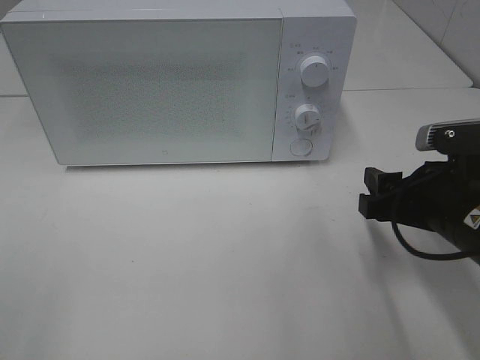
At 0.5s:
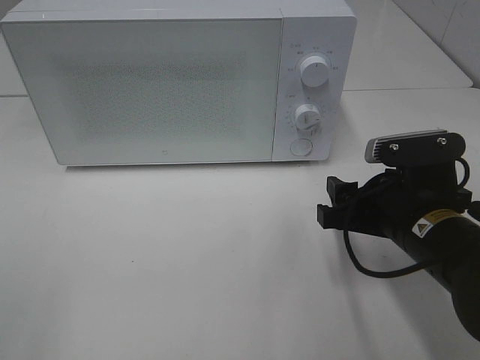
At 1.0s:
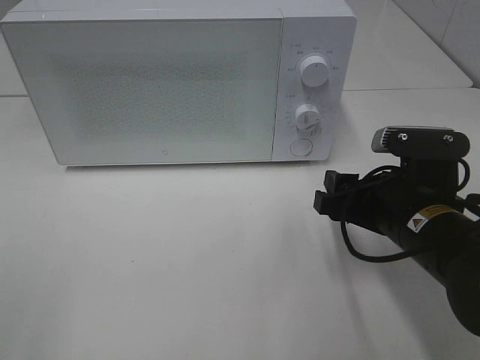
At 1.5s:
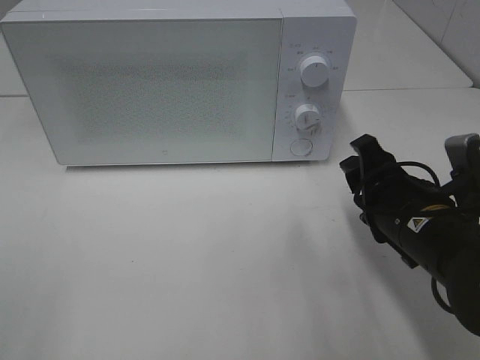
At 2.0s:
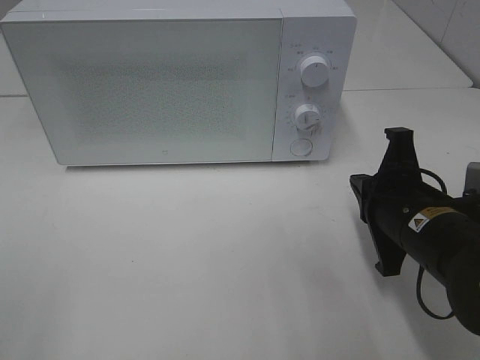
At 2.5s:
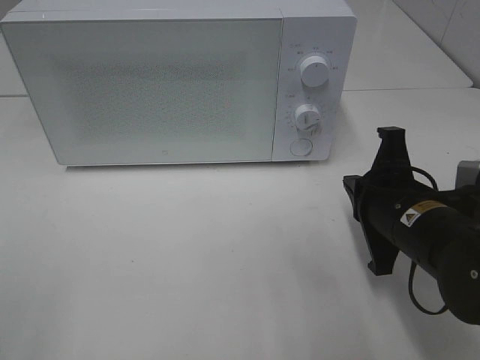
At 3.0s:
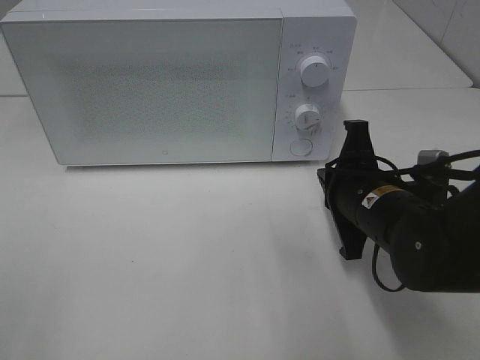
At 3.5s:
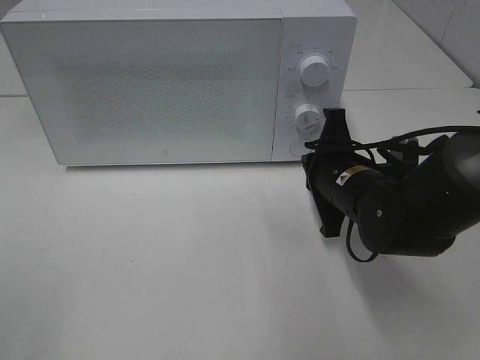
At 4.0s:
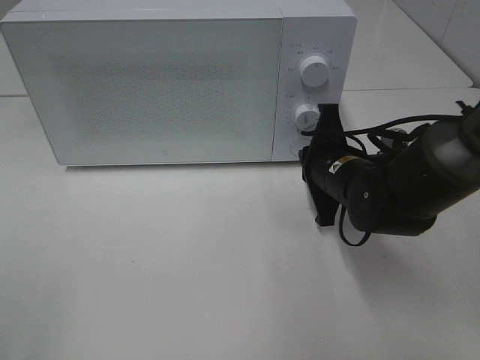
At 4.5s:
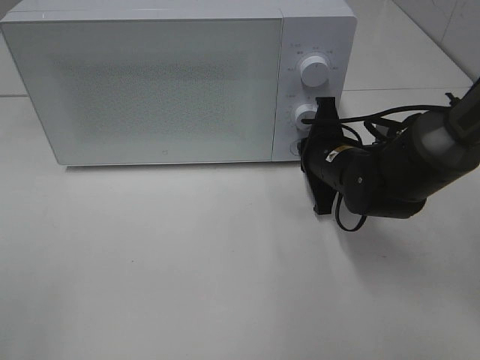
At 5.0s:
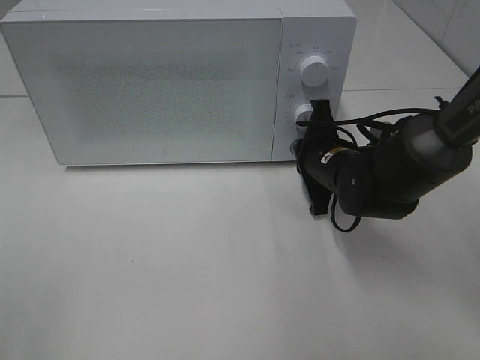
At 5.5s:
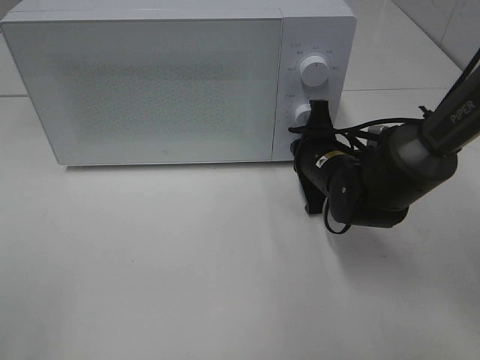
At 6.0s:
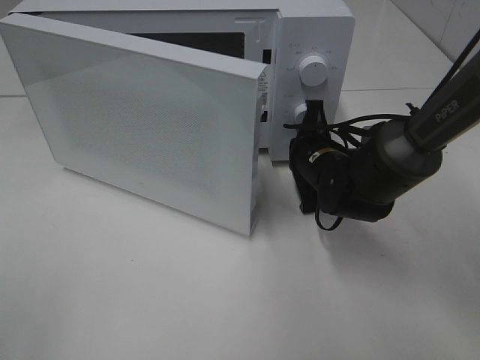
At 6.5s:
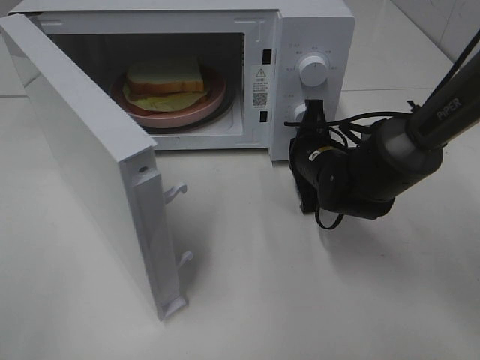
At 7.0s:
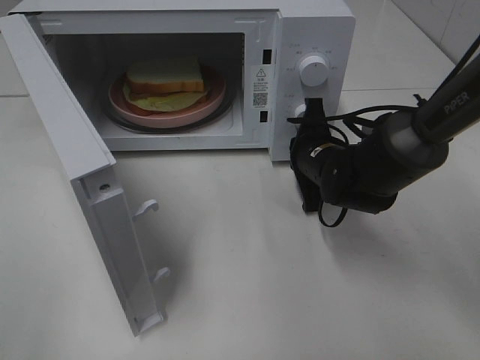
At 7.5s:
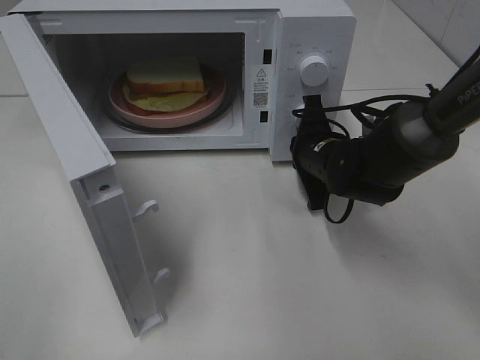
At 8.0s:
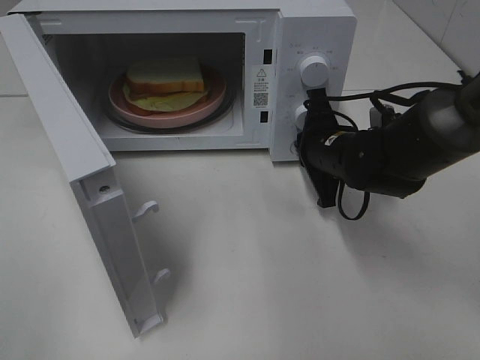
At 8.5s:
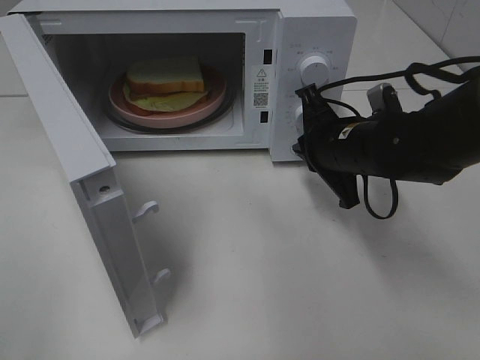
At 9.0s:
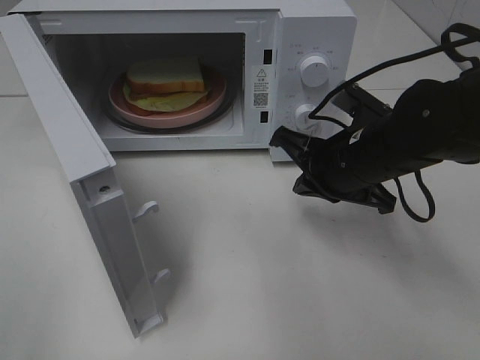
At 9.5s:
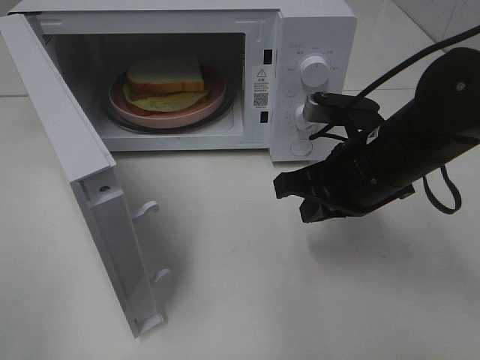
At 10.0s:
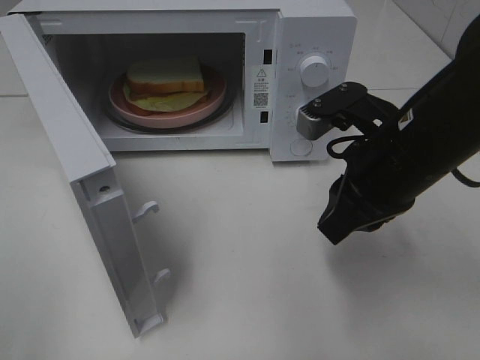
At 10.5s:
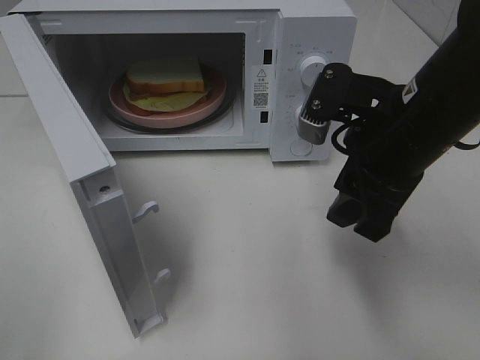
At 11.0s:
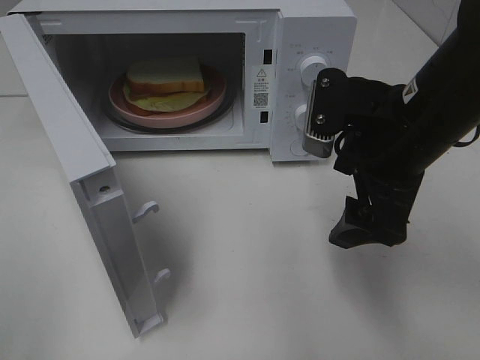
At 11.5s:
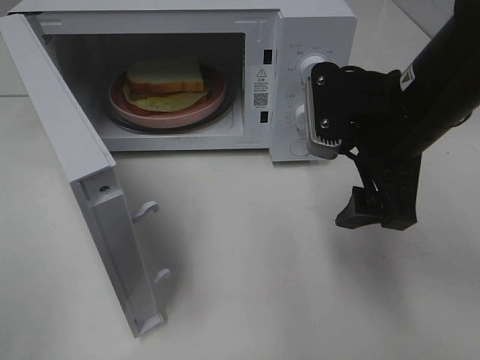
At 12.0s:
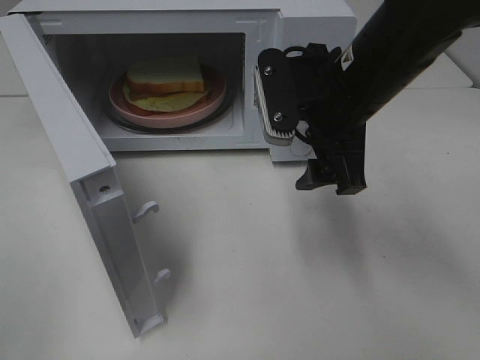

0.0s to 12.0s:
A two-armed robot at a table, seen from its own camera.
Task of the whole recording: Heat Sandwich.
Step, 0.0s to 8.0s: Right hand: press the switch.
0.0s to 2.0s: The right gripper closes its fingers.
2.0s to 4.0s: The right gripper is displaced forward by about 10 cm.
8.0s to 10.0s: The right gripper moves backward and upward, approximately 15 cm.
10.0s to 12.0s: The right gripper moves forward, roughly 5 cm, and opens up.

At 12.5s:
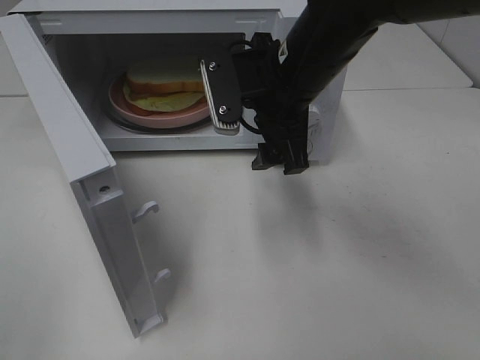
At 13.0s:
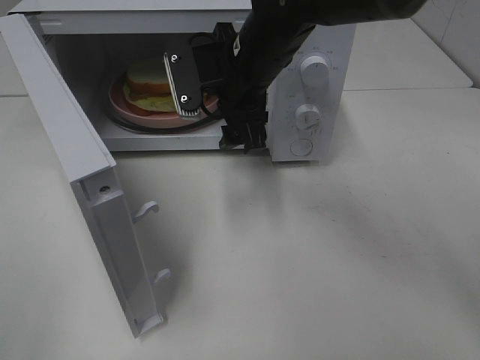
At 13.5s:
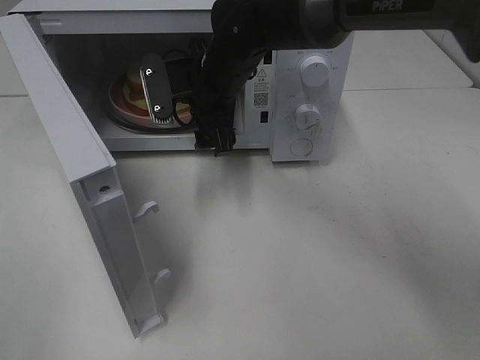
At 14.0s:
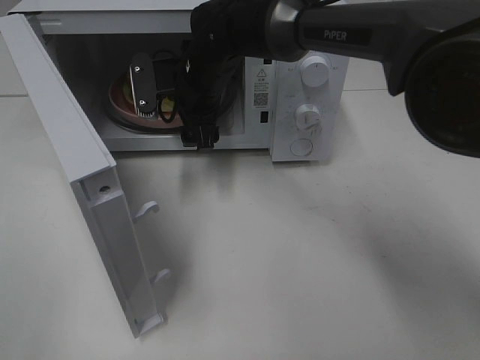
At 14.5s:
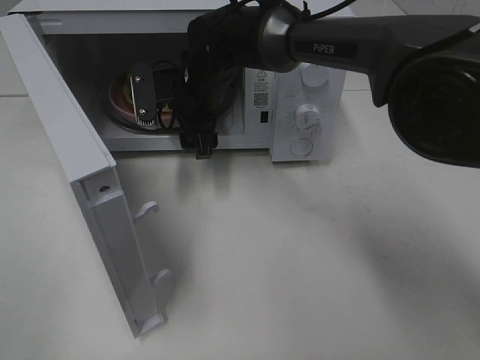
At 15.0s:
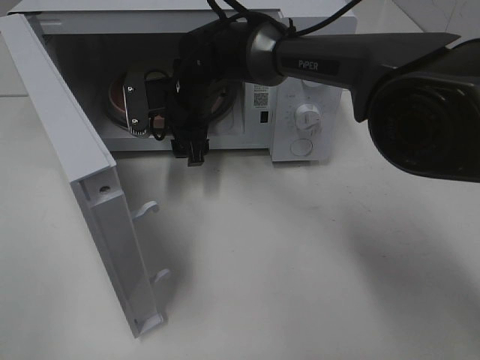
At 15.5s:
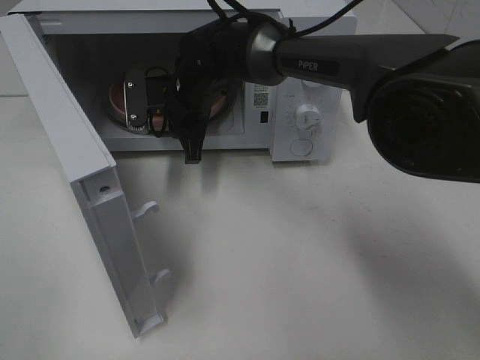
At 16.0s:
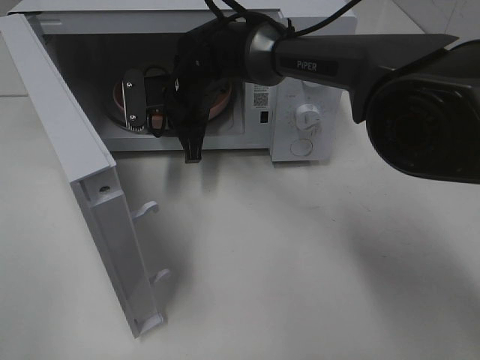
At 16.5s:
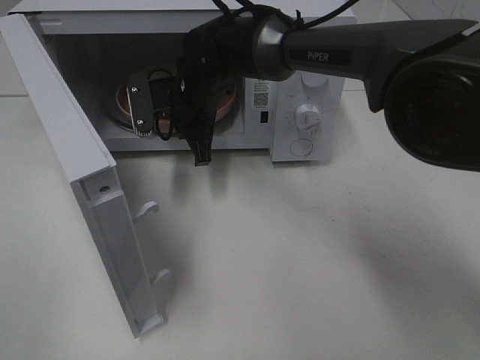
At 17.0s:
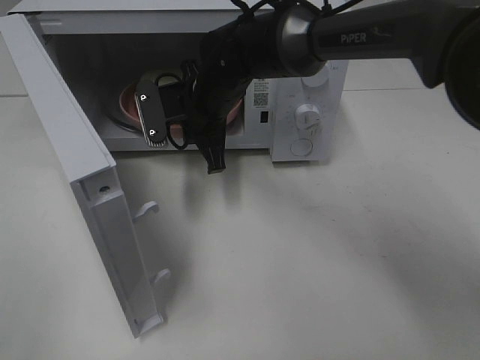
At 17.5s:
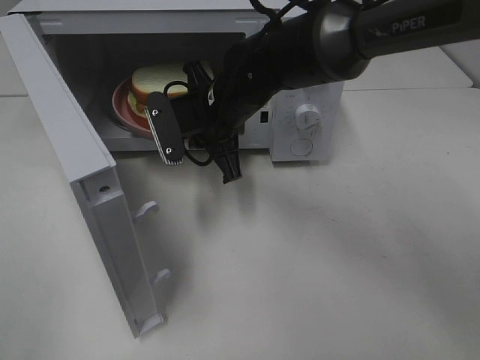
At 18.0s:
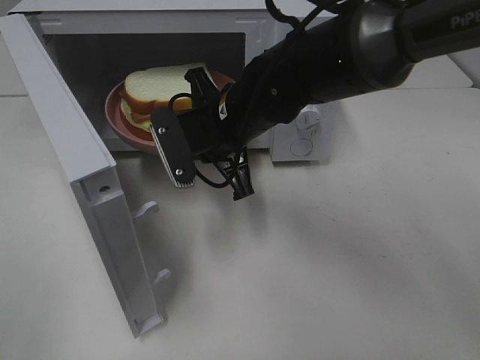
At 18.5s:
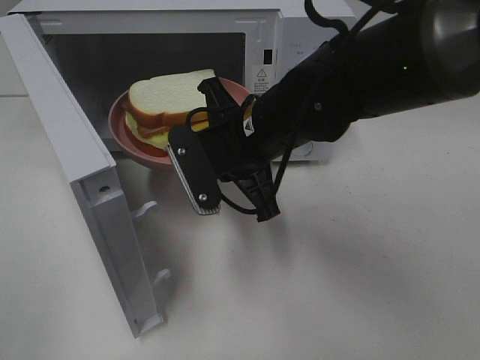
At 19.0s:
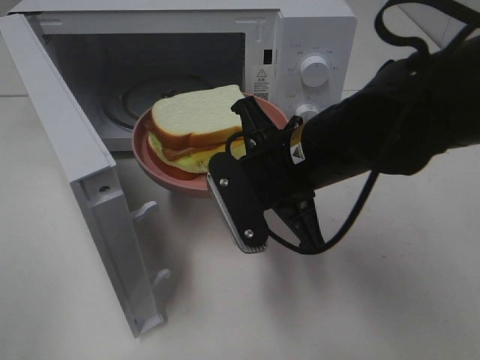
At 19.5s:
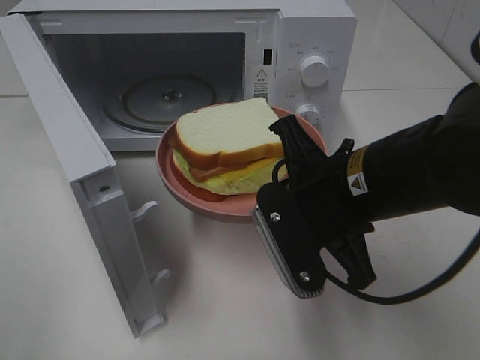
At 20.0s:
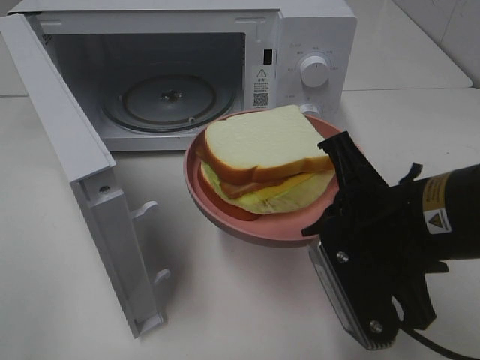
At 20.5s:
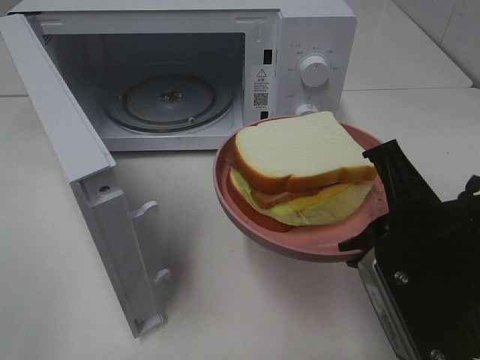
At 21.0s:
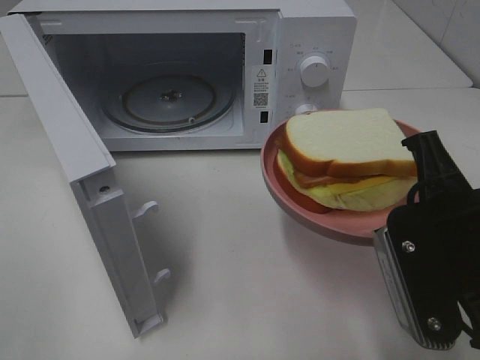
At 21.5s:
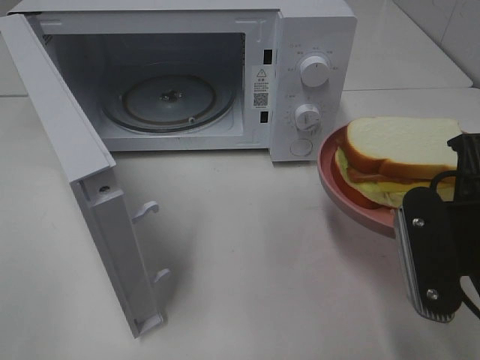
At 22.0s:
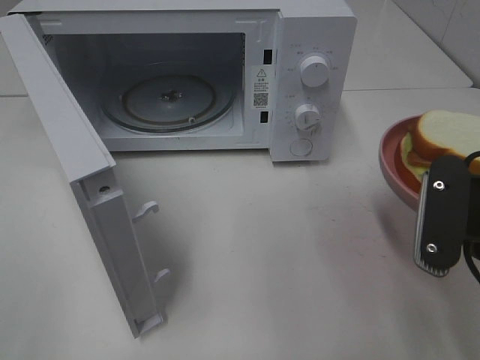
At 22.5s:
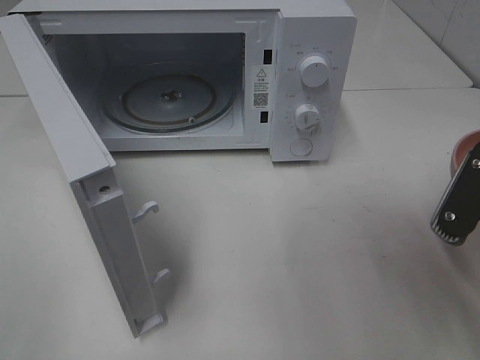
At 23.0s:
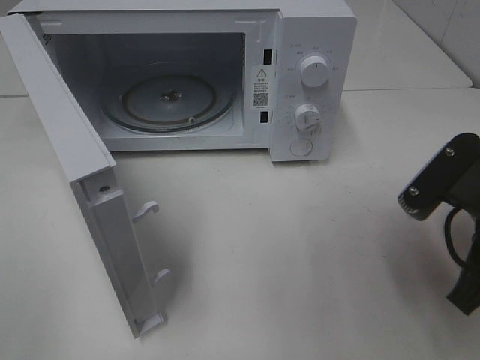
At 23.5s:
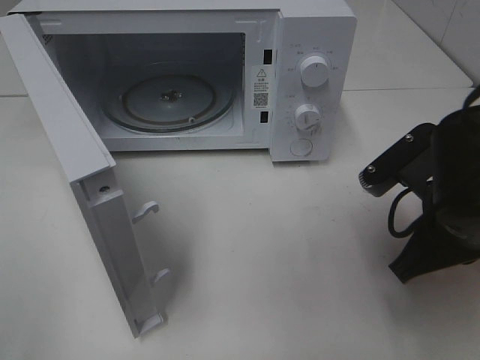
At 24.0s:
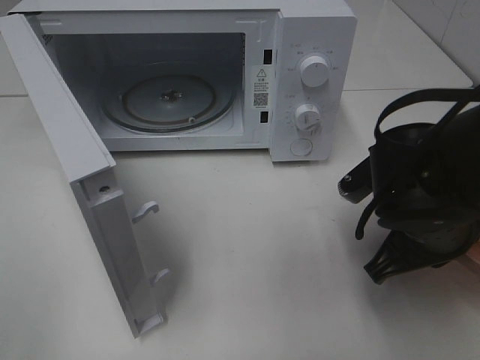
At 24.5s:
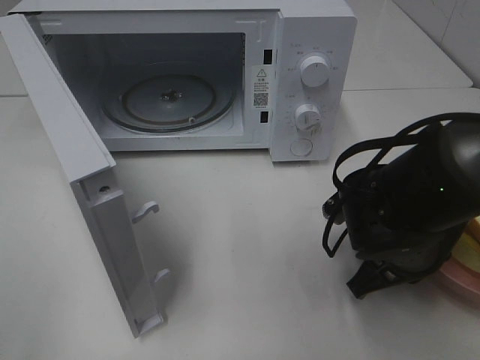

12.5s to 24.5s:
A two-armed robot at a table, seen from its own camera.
Task of the whole recording: Heat Sandwich.
Step, 12.5s to 15.5s: Right hand: grab the plate with the sandwich.
12.5s to 14.5s: The right gripper shifts approximately 15 cm forward, to the left and downward.
14.5s to 16.5s: The right gripper closes up.
16.5s to 18.5s: The right gripper shifts about 15 cm backward and to the right.
18.5s to 20.5s: The right gripper heads backward and to the right, covering roughly 20 cm.
20.5s to 22.5s: The right gripper is displaced to the right by some 5 cm.
22.5s to 24.5s: The right gripper goes approximately 15 cm downward, forward and to the left.

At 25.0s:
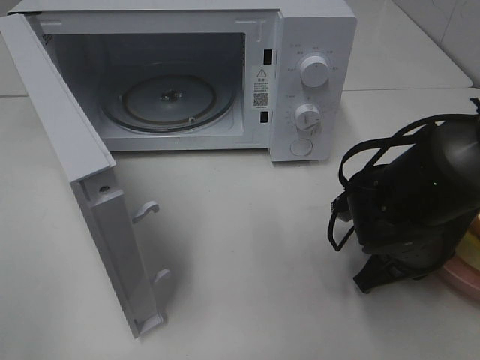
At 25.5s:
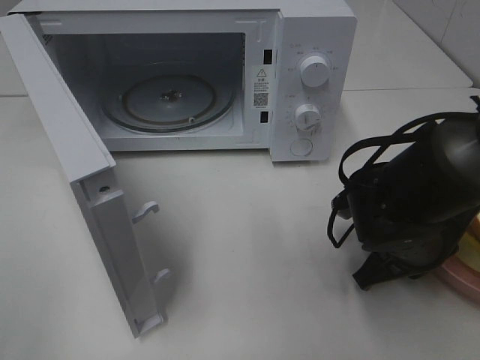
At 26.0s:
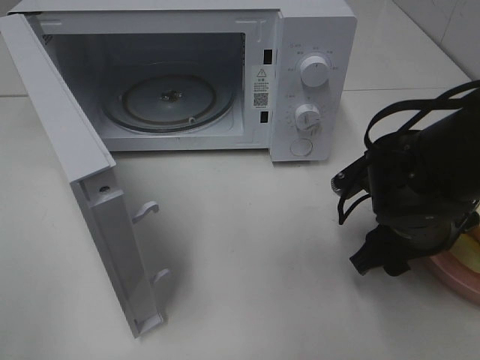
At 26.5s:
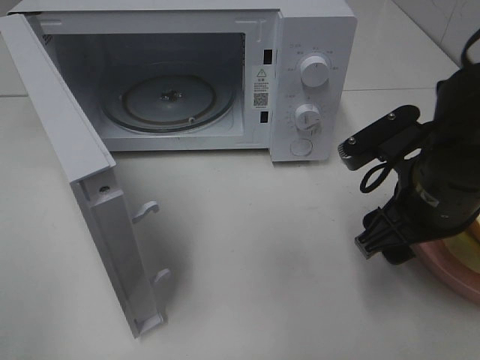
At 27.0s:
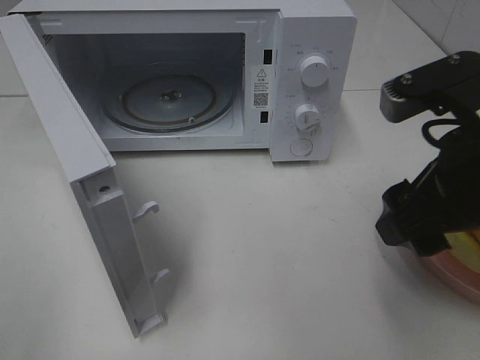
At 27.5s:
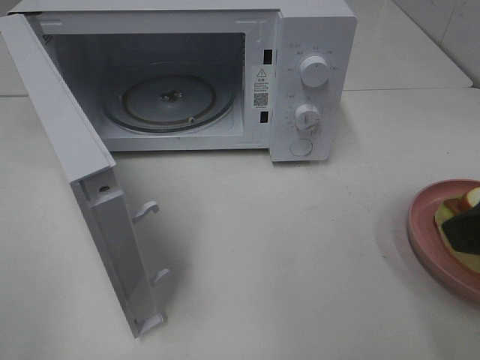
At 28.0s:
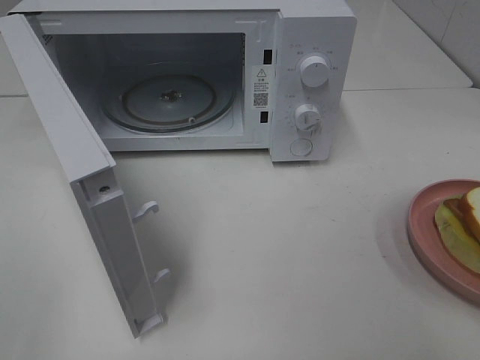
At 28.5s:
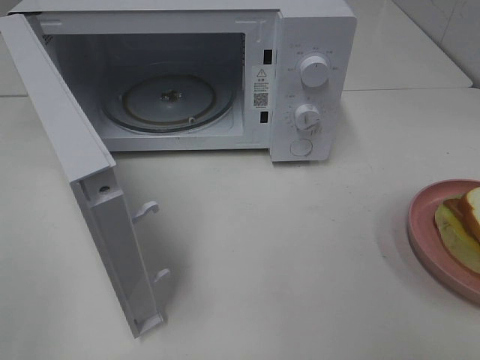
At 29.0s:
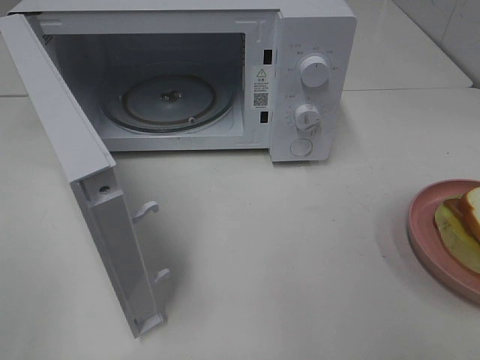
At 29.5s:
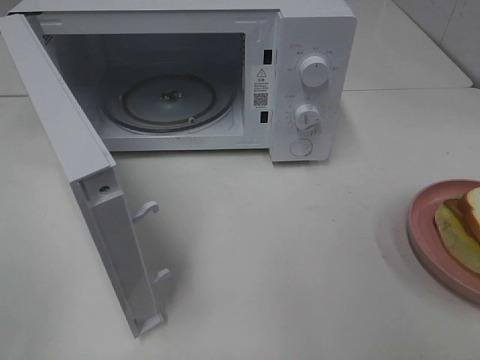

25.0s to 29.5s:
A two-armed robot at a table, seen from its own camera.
Task of the whole recording: Heat Sandwich.
Step, 25.0s to 27.0s: Right hand: place the plate on the table.
25.0s to 27.0s: The right gripper is displaced upward by some 20 cm, and opens up.
27.0s to 29.5s: The right gripper heads backward and to the right, covering about 20 cm.
